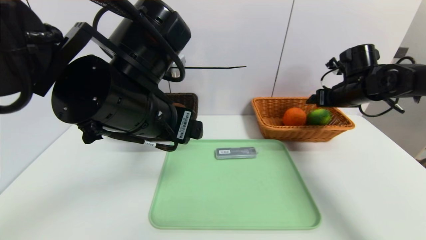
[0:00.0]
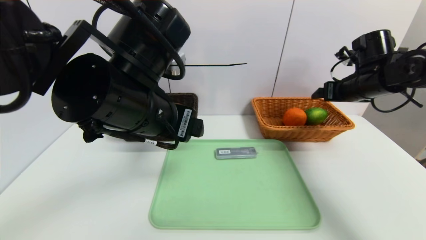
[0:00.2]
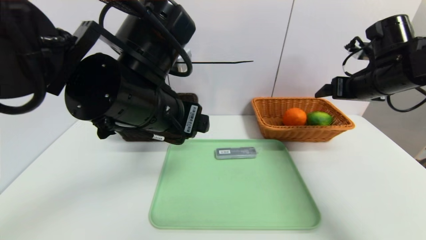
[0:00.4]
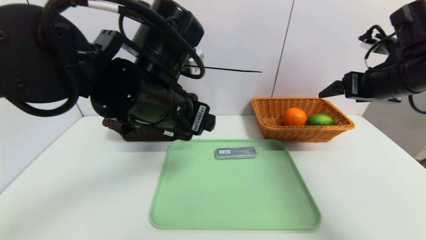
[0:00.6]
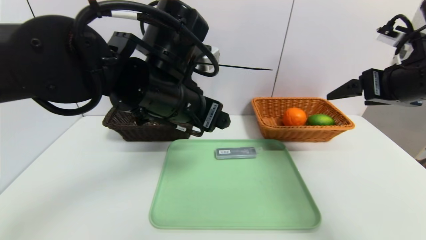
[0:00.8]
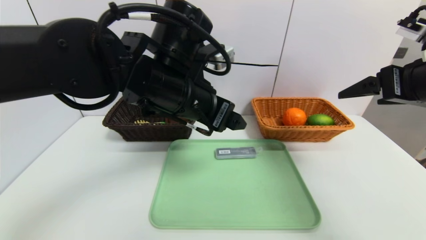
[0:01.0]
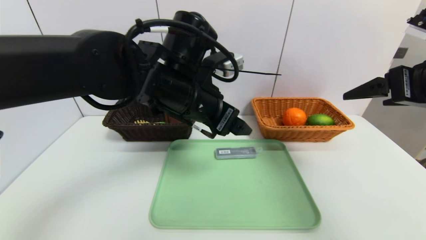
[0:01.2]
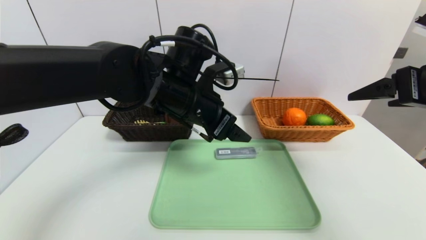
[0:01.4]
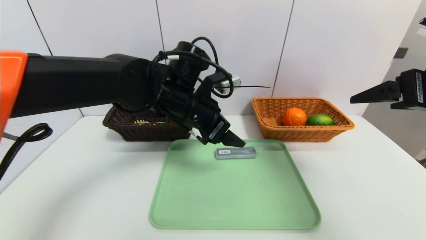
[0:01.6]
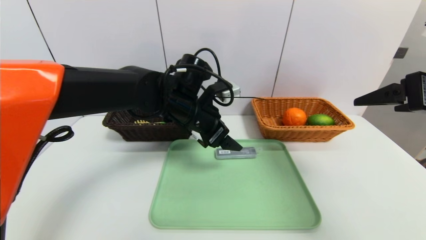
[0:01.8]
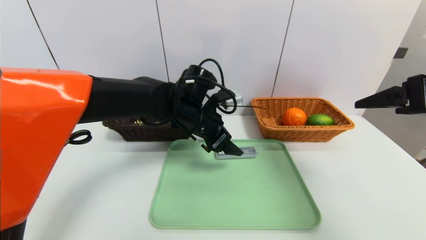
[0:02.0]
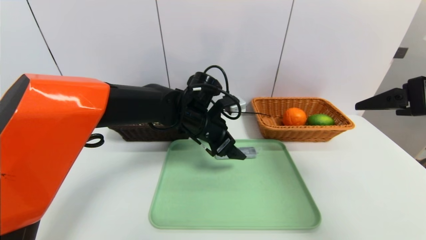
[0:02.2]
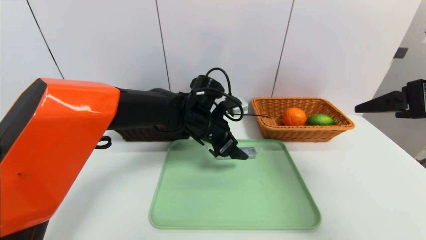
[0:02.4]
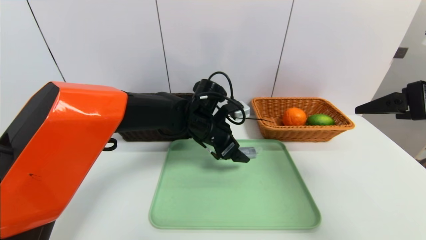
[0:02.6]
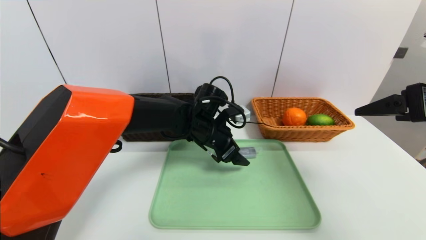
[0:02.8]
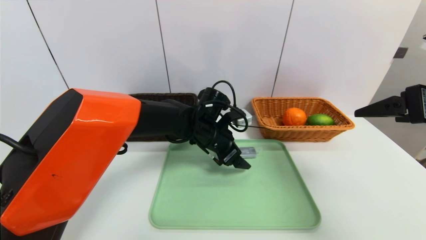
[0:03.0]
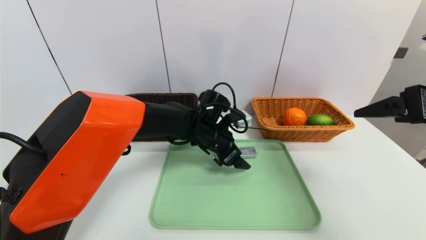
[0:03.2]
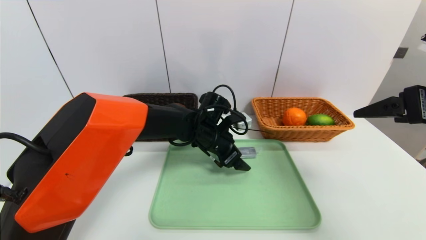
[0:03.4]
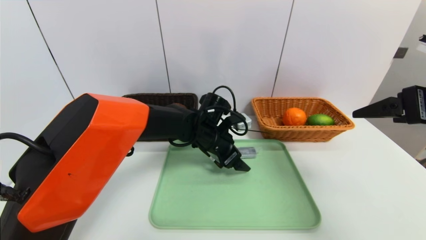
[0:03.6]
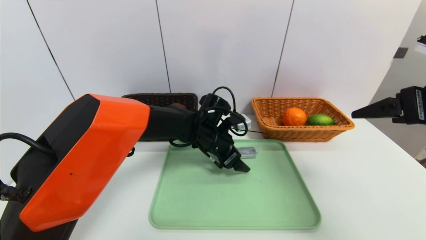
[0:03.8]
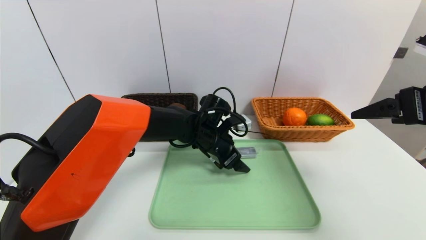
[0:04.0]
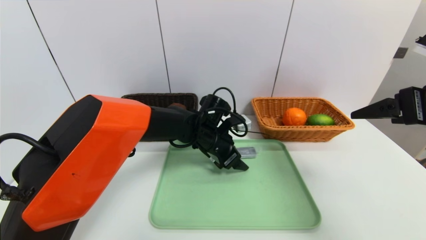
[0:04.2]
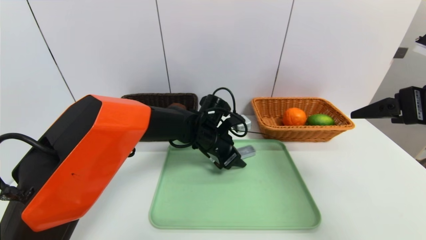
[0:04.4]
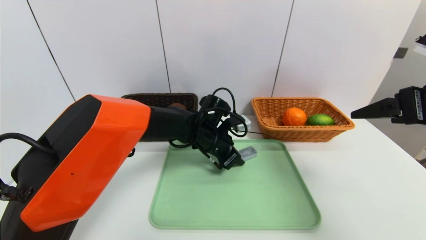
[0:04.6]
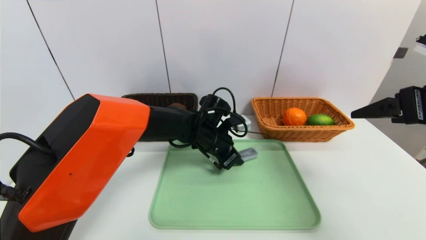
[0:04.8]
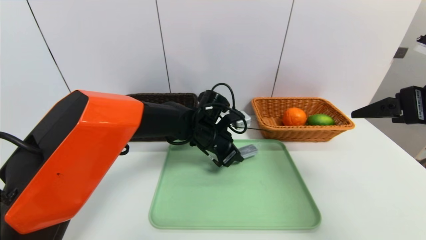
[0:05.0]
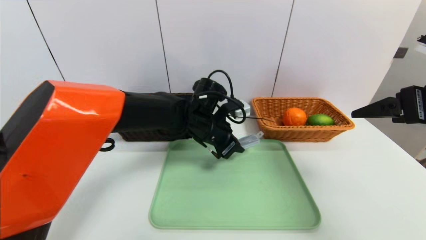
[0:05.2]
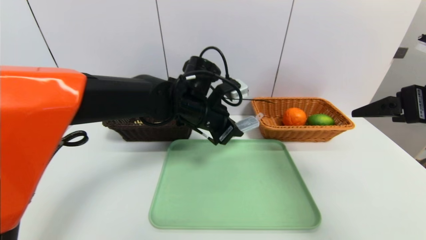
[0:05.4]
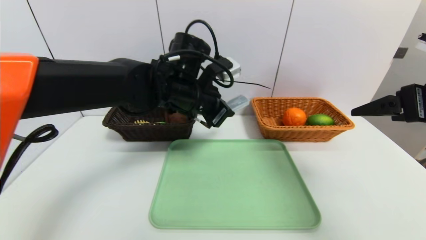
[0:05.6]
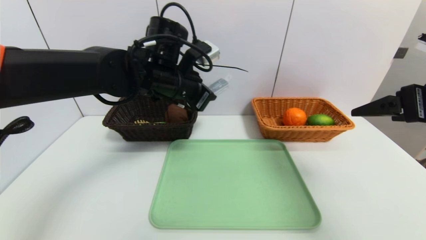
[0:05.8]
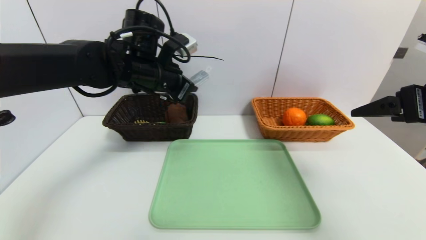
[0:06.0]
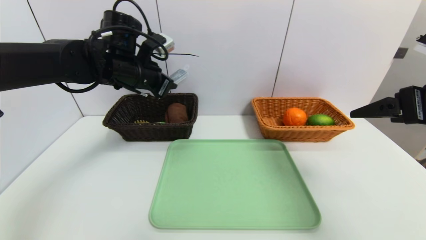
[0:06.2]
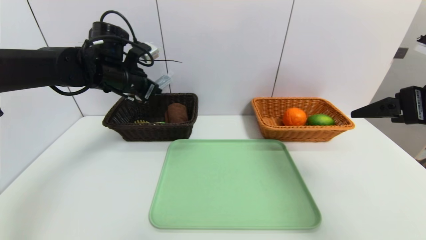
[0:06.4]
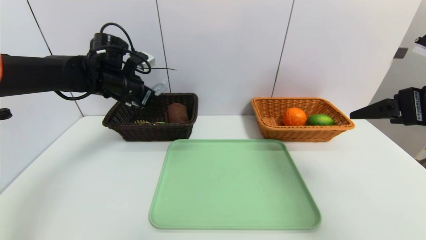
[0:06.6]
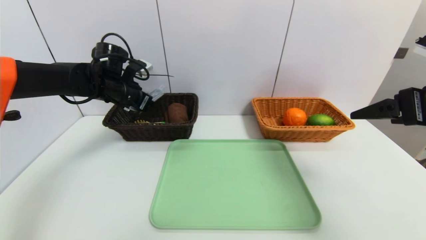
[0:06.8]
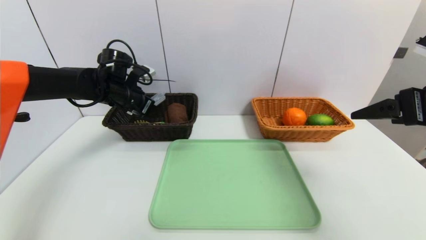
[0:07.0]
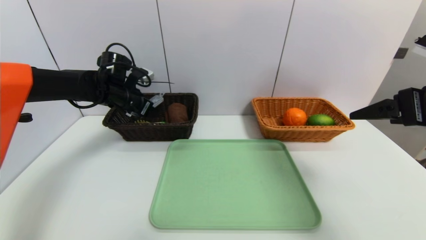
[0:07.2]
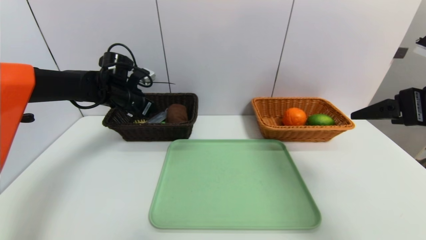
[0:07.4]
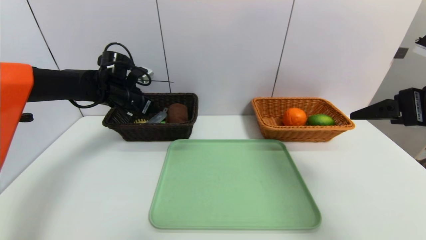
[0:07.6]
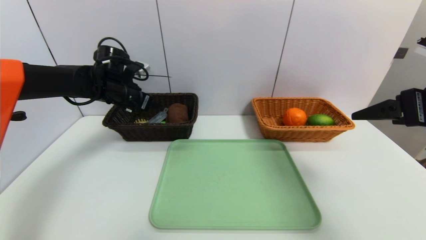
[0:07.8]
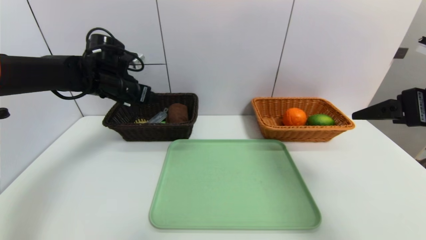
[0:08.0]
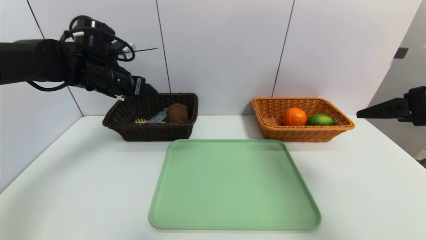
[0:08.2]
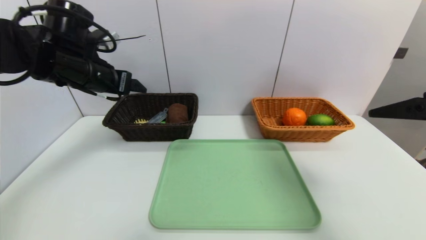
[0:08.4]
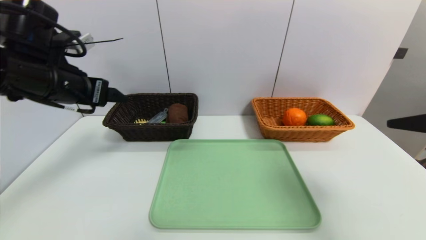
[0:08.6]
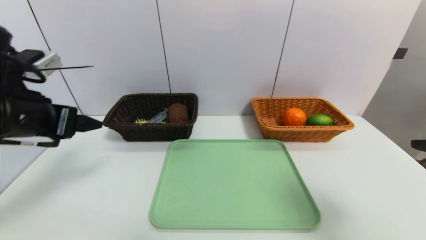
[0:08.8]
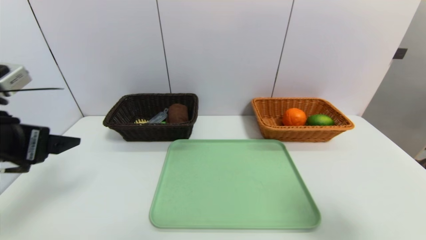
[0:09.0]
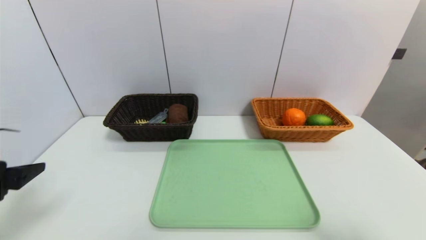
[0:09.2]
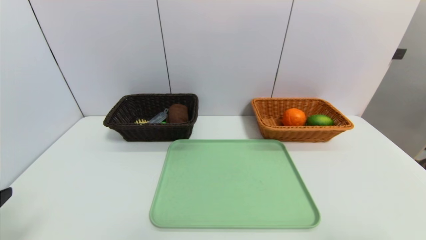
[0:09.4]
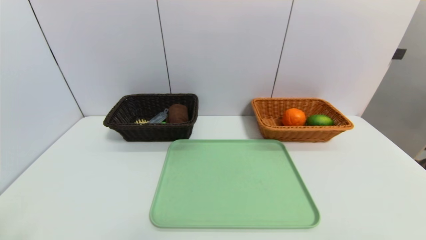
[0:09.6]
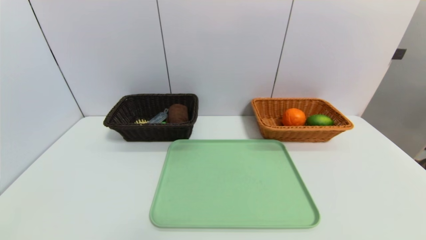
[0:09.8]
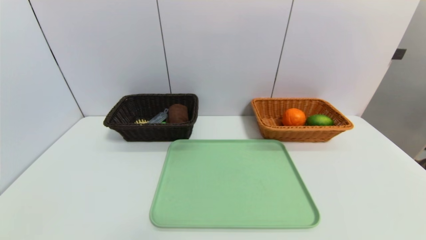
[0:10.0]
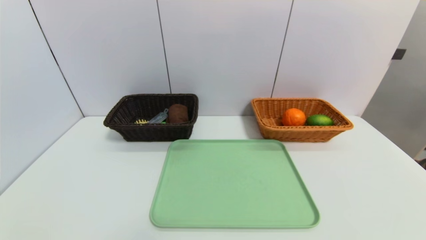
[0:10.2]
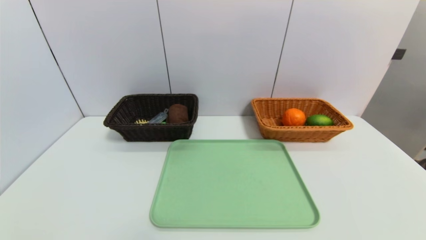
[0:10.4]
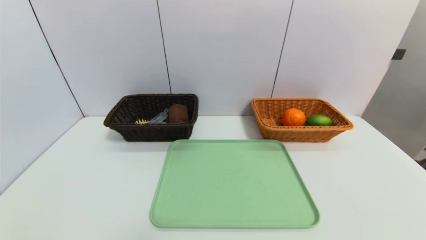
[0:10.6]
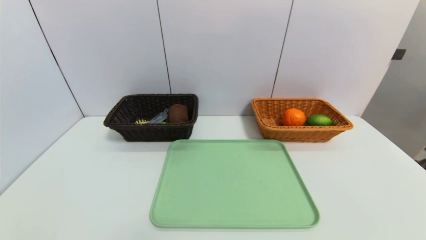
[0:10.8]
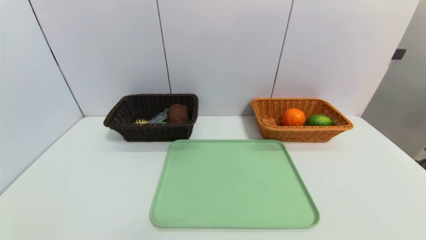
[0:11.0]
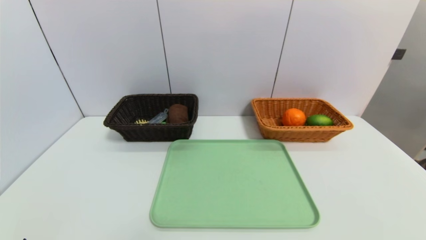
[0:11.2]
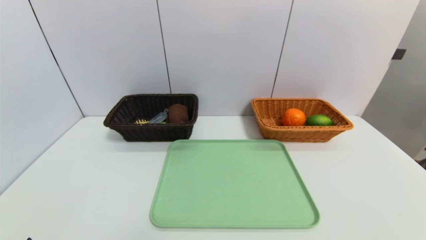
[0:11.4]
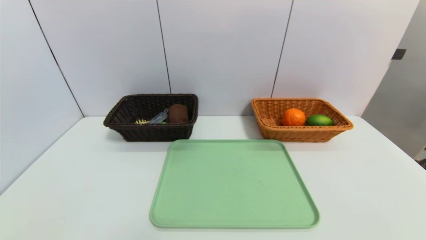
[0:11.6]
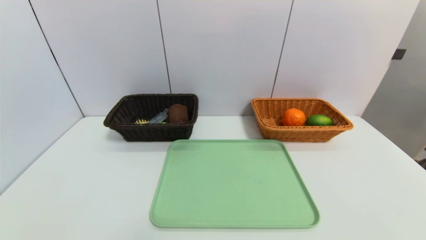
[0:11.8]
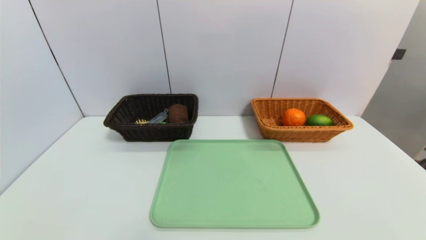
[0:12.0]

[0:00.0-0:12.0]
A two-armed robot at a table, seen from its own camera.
Task of the whole recording: place the food in the right basket with the right gripper, and place the non food items in the left basket with the left gripper.
Step, 0:00.2 to 0:07.8: Grasp the compass and put it in the left basket.
0:00.0 to 0:01.6: The right gripper goes some 25 cm backward and upward; the left gripper is displaced forward and downward by some 10 cm.
0:01.6 to 0:03.0: The left gripper is displaced downward by approximately 10 cm.
0:03.0 to 0:04.4: The left gripper closes its fingers.
0:04.4 to 0:06.0: The left gripper heads upward and to the left, covering roughly 20 cm.
0:06.0 to 0:07.6: The left gripper goes about 15 cm to the left, downward and forward, and opens up.
0:07.6 to 0:09.0: The left gripper shifts approximately 30 cm backward, while the right gripper travels backward by approximately 15 cm.
0:09.0 to 0:10.4: Both grippers move backward and downward, some 20 cm.

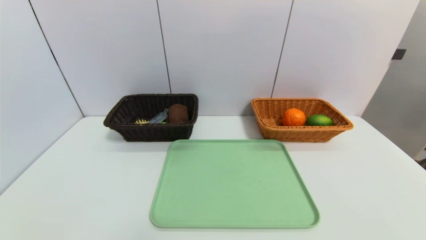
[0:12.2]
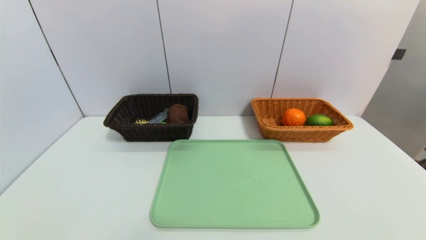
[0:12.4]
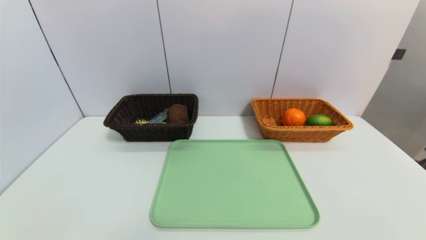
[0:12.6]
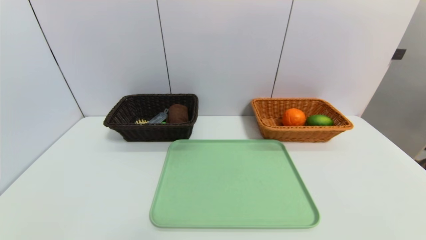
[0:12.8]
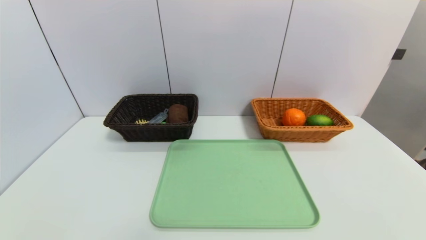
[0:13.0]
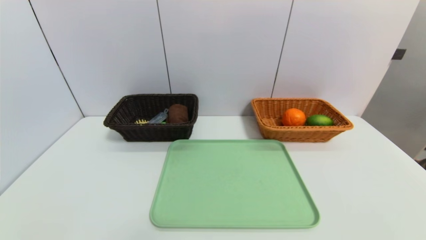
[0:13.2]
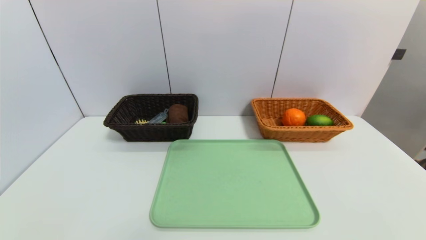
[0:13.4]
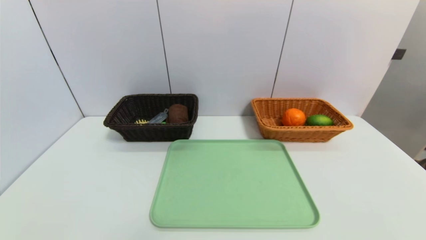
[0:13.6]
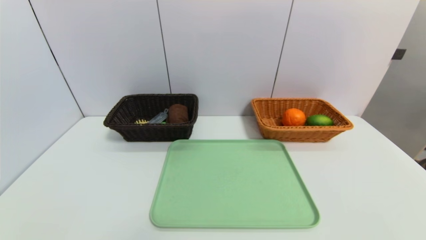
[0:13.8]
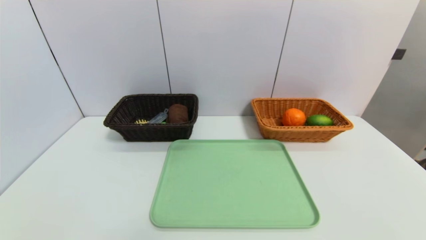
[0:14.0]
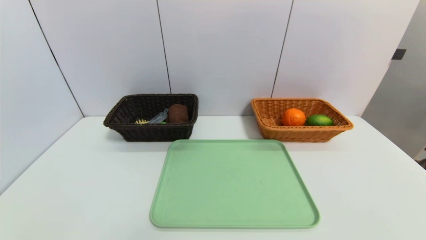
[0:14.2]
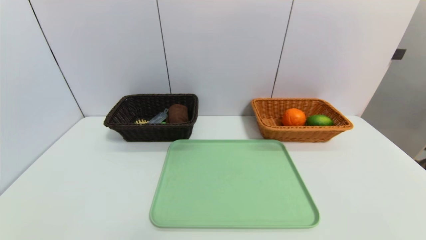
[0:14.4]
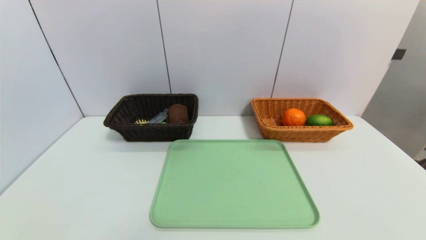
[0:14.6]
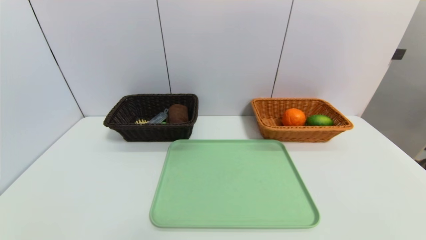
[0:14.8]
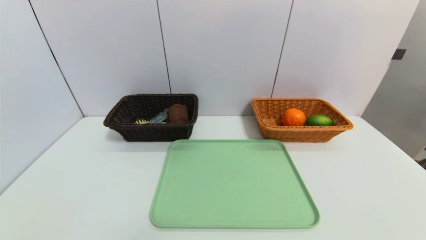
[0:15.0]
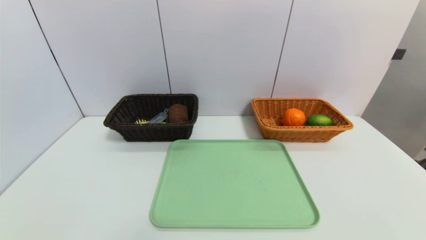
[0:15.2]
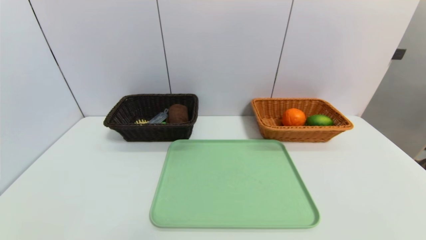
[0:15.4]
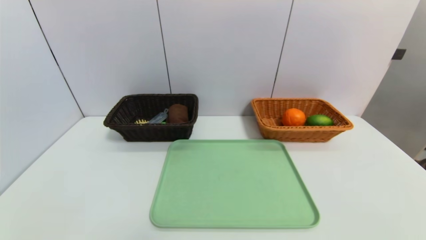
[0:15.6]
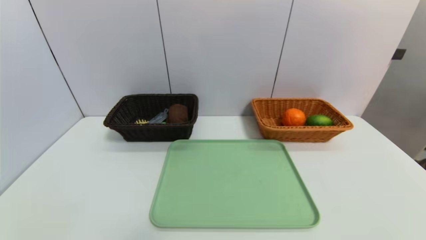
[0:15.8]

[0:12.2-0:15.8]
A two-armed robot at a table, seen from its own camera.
Task of the whole recording: place the food in the right basket with the right gripper, and place the non food items in the left basket with the left gripper.
0:12.2 to 0:15.8: Both grippers stay about where they are.

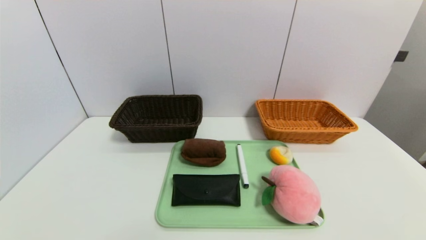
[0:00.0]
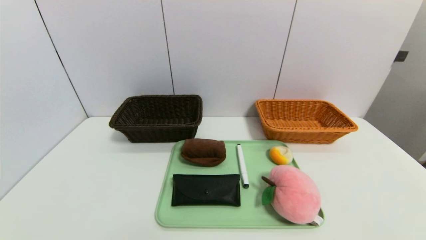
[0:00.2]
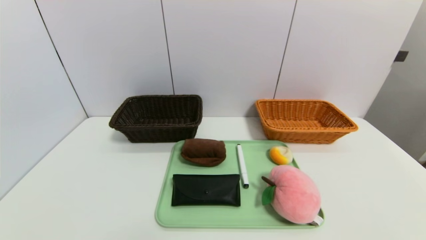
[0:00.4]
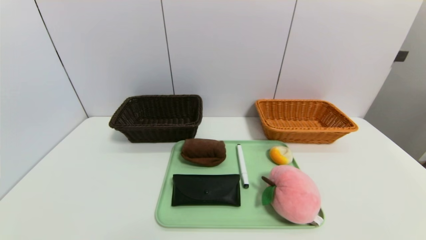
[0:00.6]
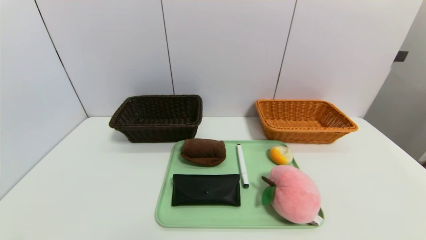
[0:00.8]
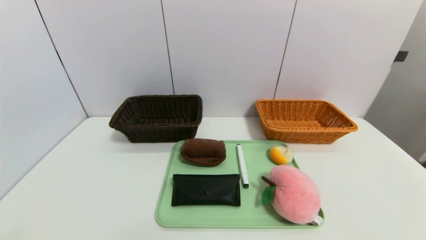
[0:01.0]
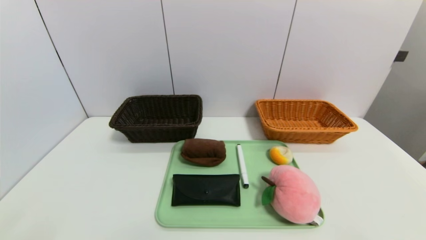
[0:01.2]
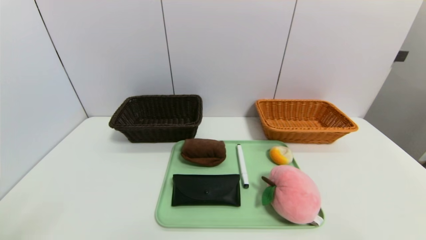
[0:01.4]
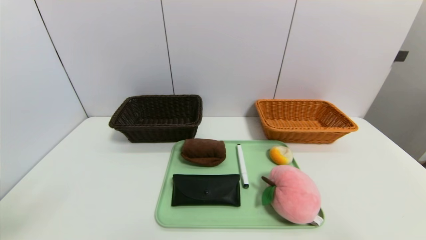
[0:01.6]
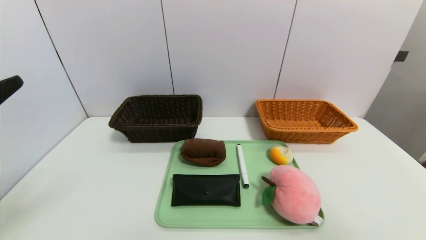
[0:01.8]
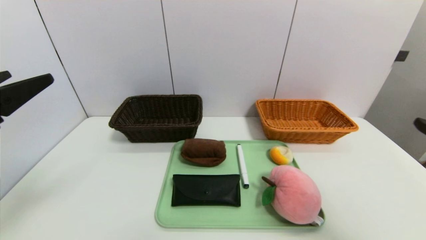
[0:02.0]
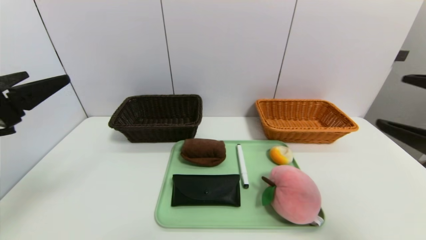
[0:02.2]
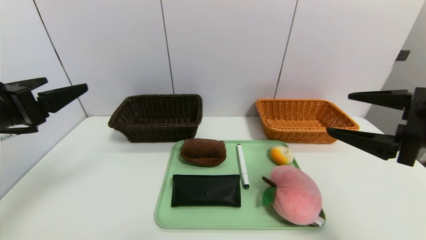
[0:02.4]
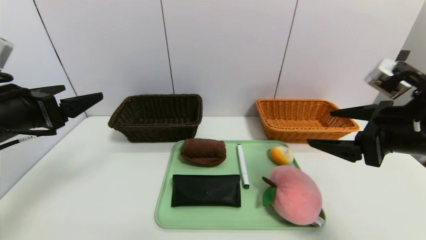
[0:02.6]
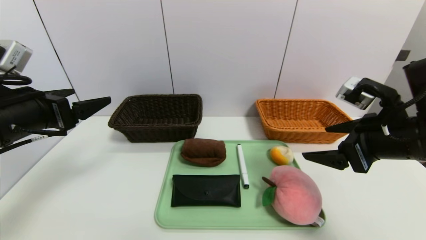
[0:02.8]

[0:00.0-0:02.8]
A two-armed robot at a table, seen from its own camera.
Task of the whole recording: place the food in the right basket with the right gripper, and place the non food items in the left basket with the left gripper.
0:01.4 to 0:02.8: Both grippers travel together forward, roughly 20 cm.
